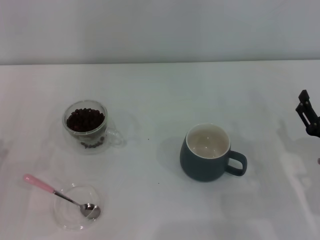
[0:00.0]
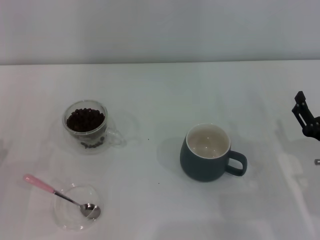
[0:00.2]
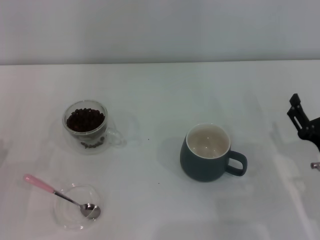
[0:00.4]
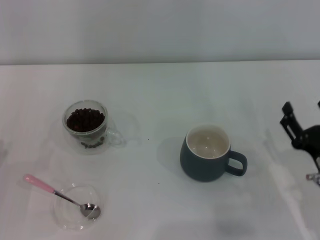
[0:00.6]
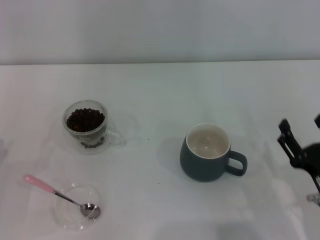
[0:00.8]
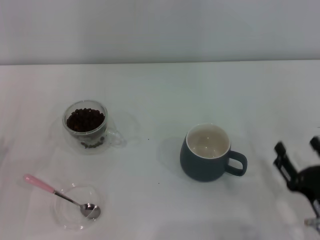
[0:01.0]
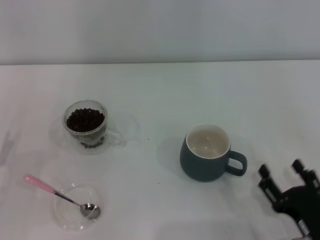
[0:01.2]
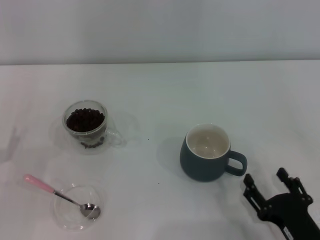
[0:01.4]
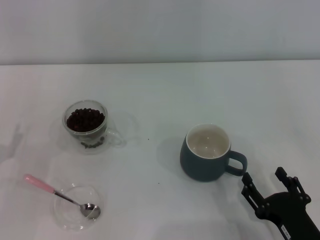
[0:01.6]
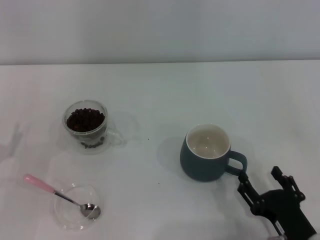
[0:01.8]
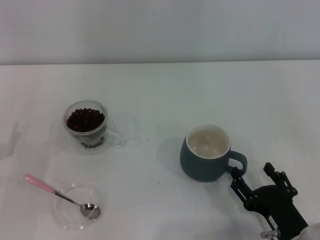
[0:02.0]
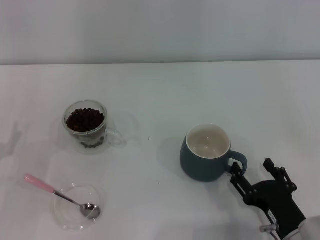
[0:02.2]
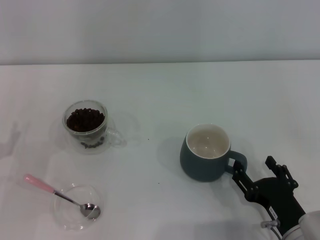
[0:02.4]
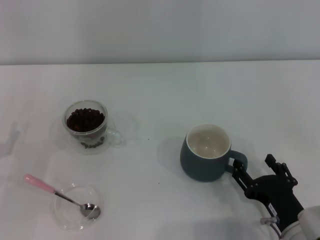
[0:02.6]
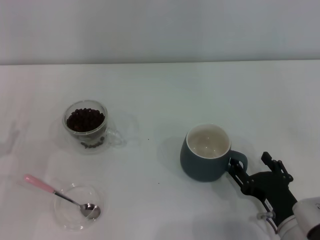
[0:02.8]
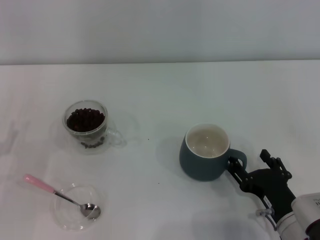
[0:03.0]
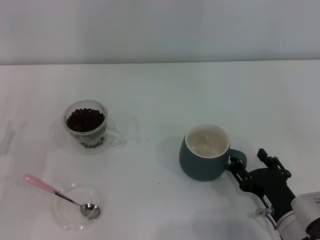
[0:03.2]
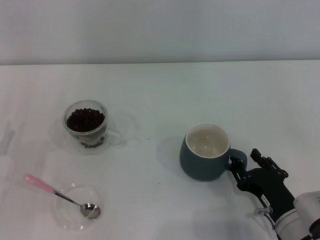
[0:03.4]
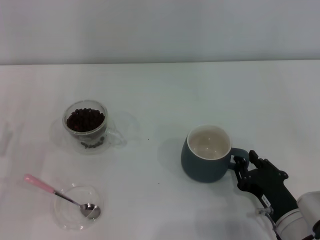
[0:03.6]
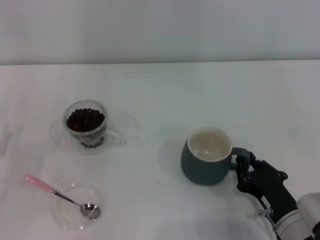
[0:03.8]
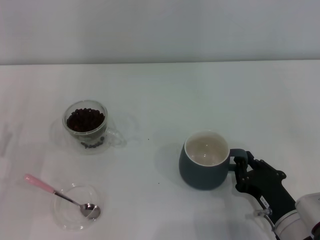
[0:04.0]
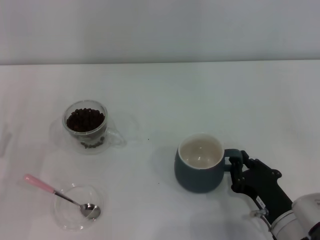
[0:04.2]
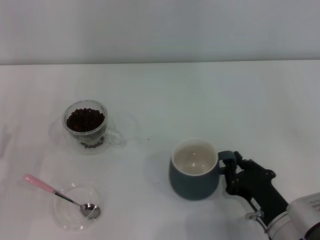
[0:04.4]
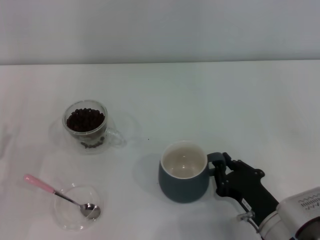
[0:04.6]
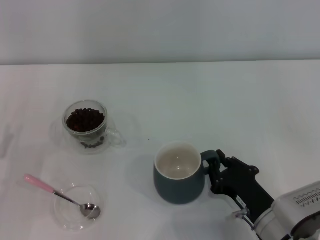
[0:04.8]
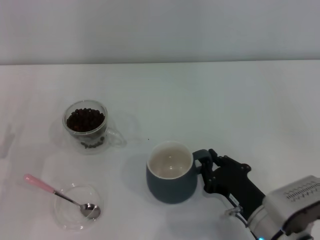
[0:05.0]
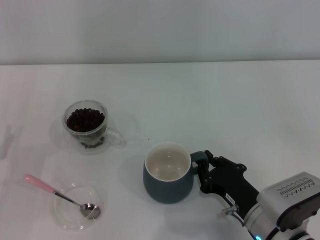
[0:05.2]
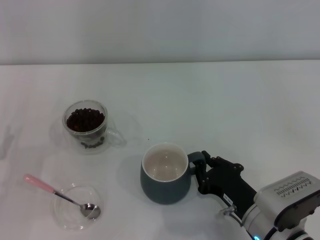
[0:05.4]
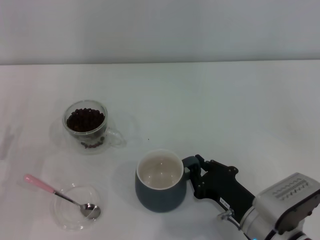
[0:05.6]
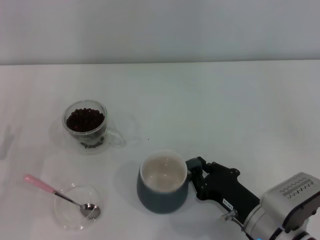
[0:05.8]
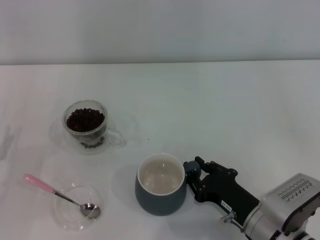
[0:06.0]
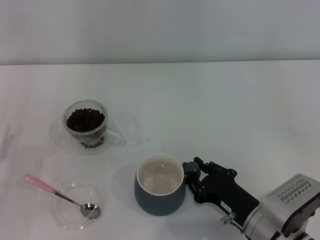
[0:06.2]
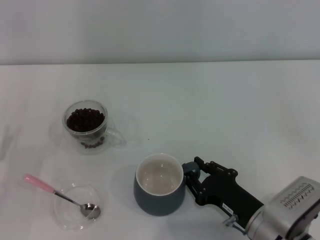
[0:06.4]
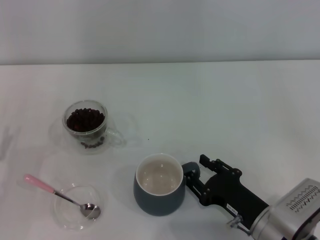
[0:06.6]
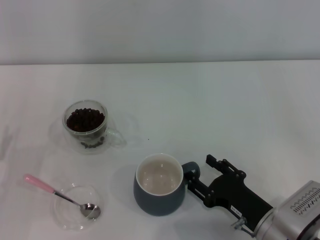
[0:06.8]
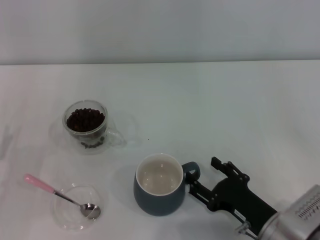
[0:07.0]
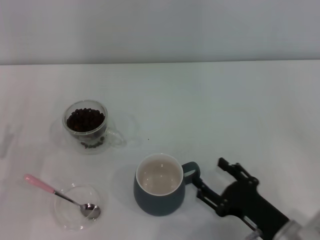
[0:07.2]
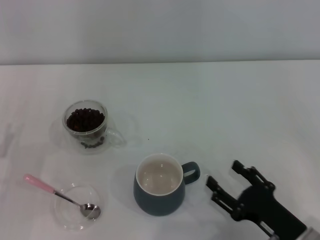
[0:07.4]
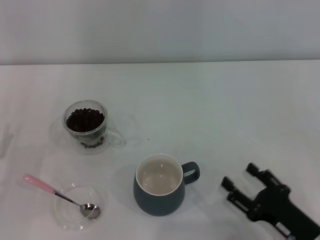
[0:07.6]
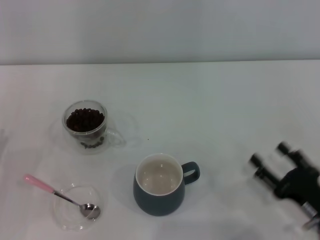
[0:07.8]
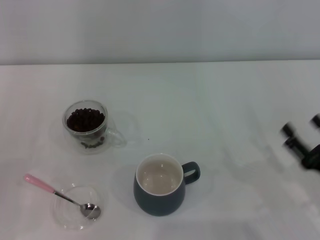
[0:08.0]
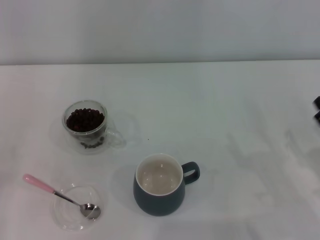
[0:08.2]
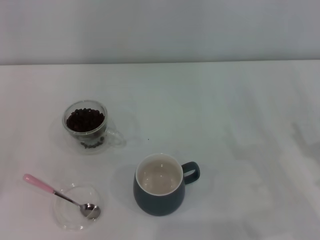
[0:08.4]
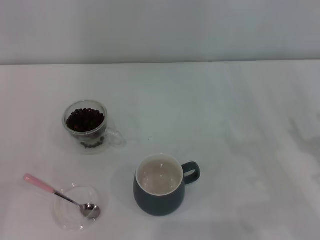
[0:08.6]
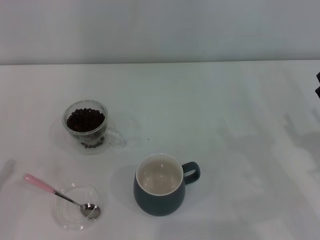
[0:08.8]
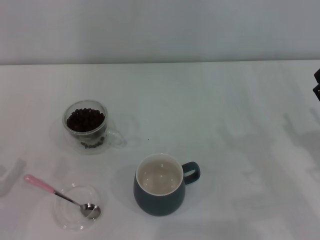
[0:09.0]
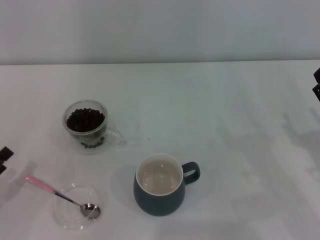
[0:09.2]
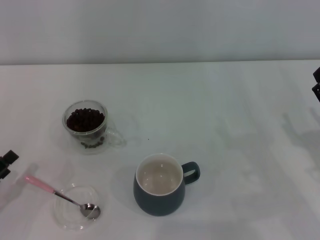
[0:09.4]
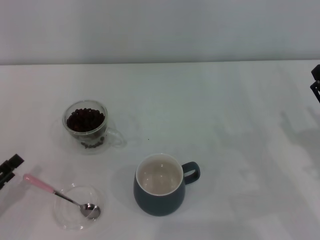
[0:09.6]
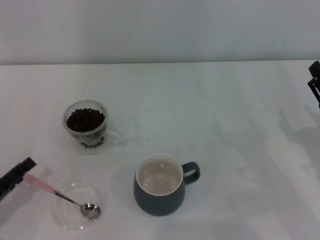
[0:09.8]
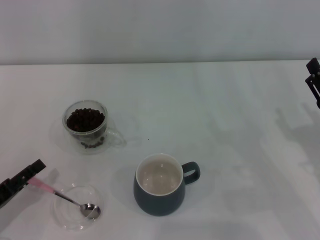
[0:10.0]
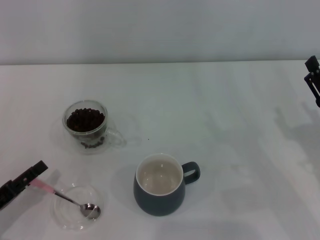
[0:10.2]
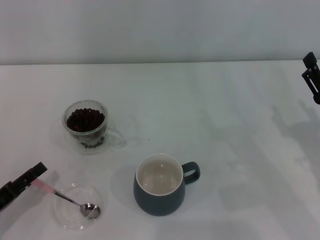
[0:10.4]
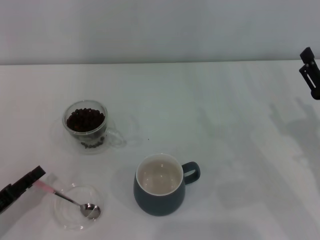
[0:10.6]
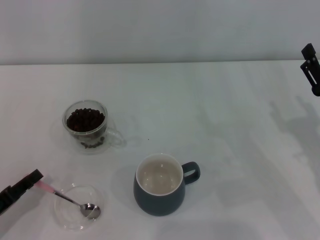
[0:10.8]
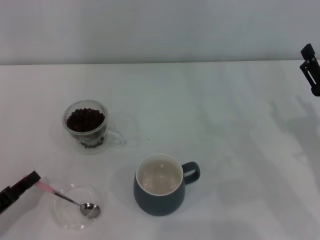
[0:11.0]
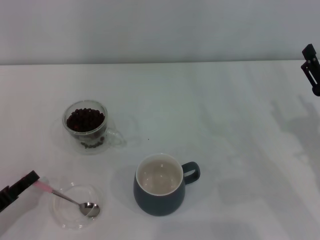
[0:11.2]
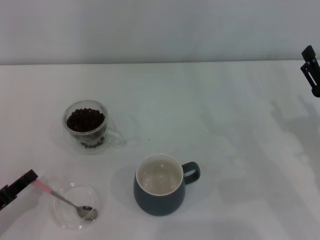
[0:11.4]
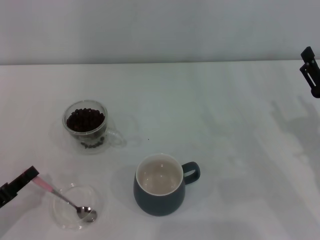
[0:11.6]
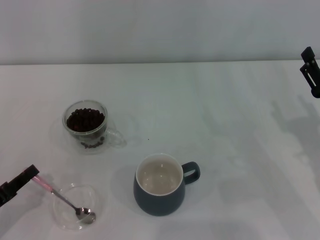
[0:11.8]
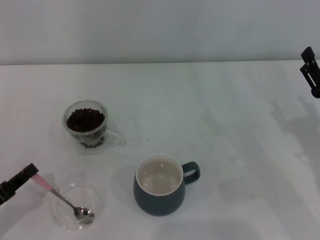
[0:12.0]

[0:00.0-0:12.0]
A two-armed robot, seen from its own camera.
Task of the whole recording: Use a pink spoon to take out the coffee beans from the glass and pour them into the gray cup.
Step, 0:00.0 to 0:07.4: Move the cup to the center of view with the left gripper.
0:00.0 to 0:01.6: The right gripper is displaced backward and to the left by roughly 10 cm.
0:01.6 to 0:03.0: The right gripper moves forward, about 5 cm.
0:03.0 to 0:04.4: The right gripper closes its fingers.
0:04.4 to 0:06.0: There are only small adjustments of the grippers.
0:06.0 to 0:07.6: The right gripper travels to the right by about 5 cm, and opens up.
0:07.6 to 0:09.0: The right gripper moves forward, to the right and upward, some 10 cm.
0:09.0 to 0:10.4: The grippers move only a little.
0:10.4 to 0:12.0: The left gripper closes up.

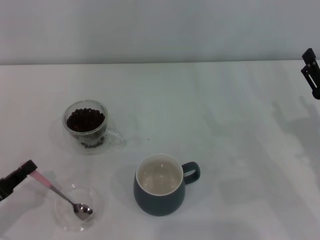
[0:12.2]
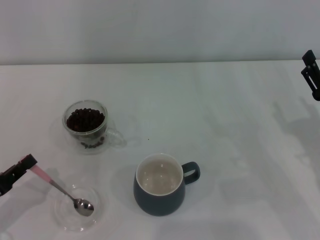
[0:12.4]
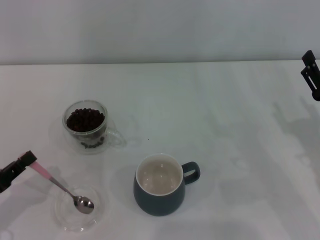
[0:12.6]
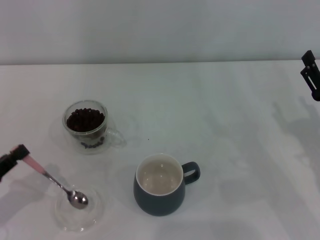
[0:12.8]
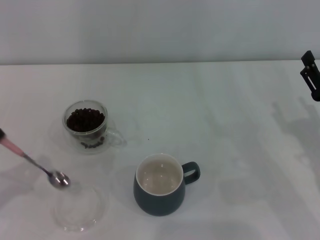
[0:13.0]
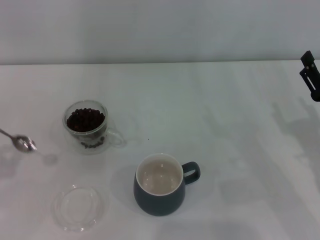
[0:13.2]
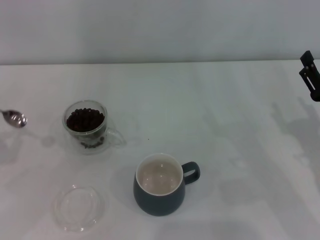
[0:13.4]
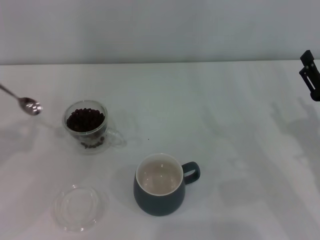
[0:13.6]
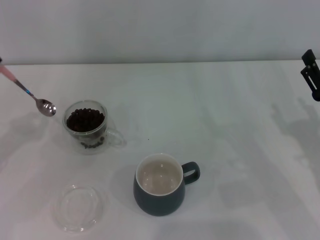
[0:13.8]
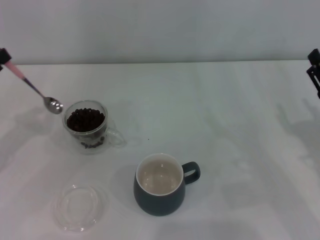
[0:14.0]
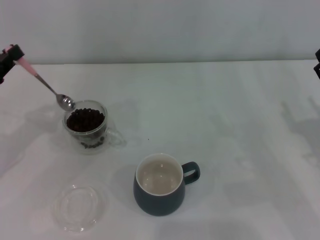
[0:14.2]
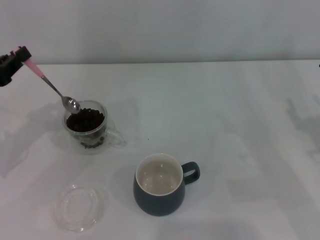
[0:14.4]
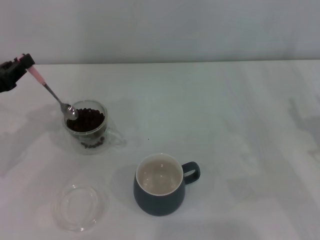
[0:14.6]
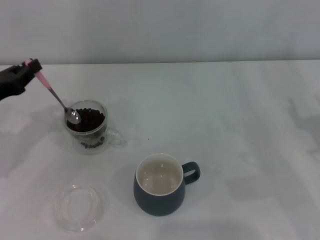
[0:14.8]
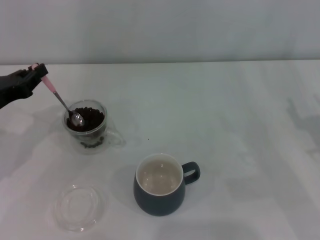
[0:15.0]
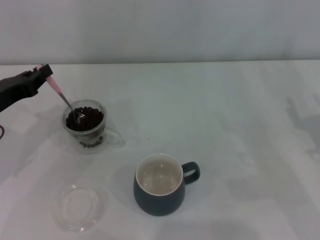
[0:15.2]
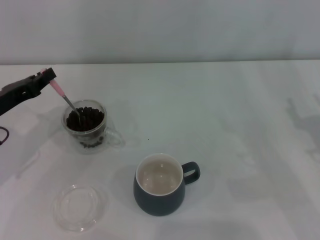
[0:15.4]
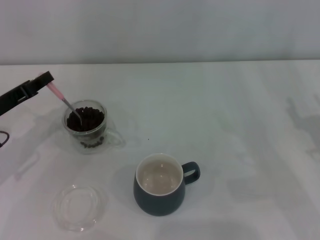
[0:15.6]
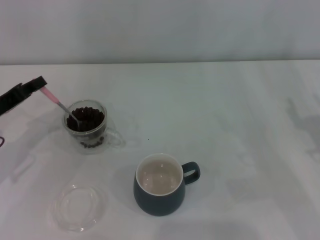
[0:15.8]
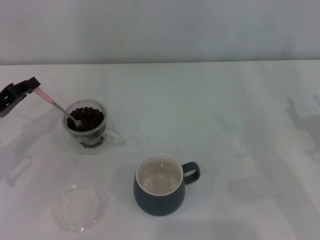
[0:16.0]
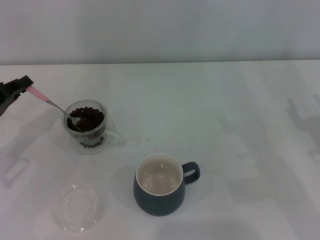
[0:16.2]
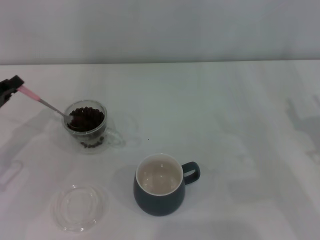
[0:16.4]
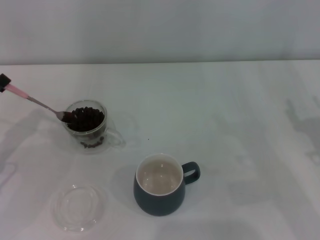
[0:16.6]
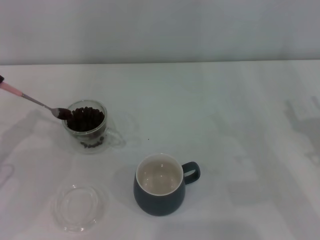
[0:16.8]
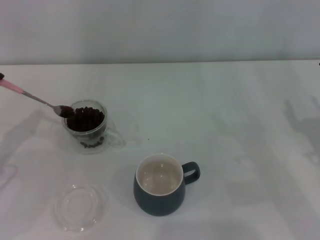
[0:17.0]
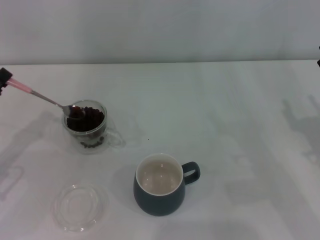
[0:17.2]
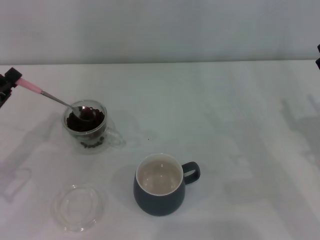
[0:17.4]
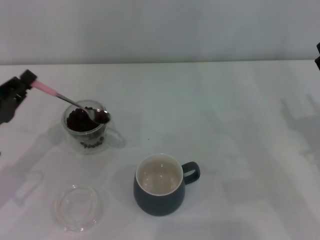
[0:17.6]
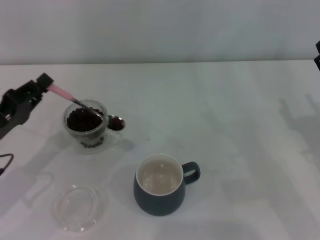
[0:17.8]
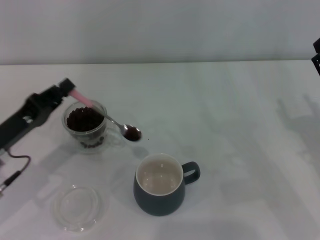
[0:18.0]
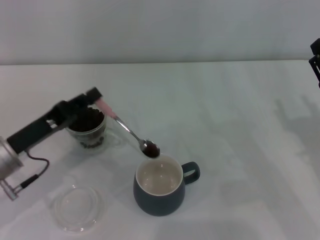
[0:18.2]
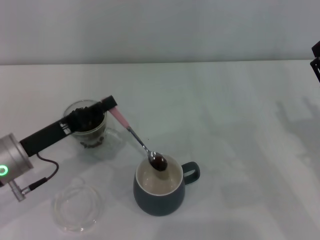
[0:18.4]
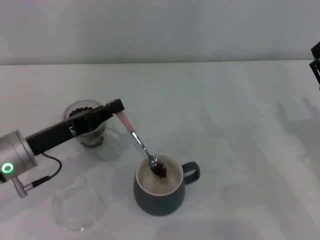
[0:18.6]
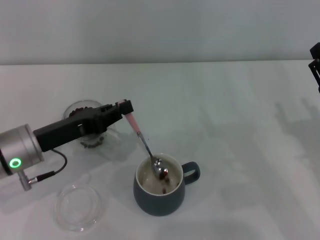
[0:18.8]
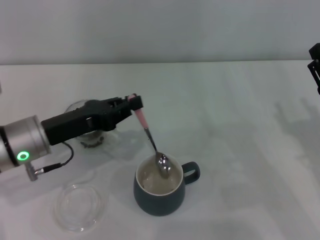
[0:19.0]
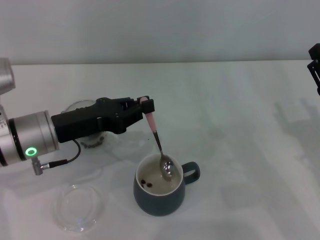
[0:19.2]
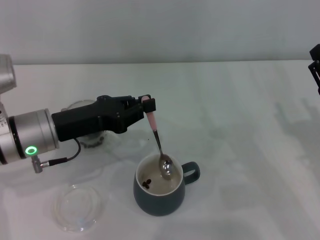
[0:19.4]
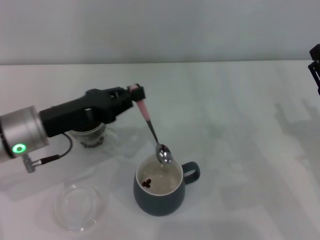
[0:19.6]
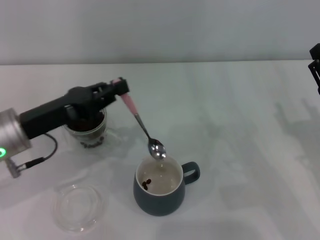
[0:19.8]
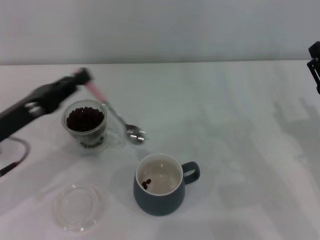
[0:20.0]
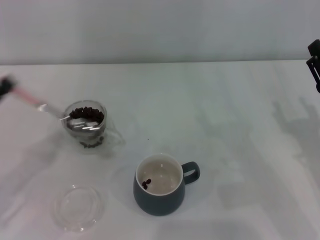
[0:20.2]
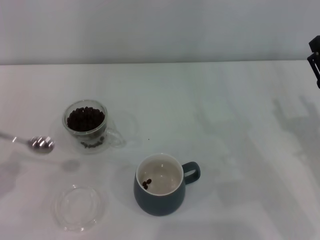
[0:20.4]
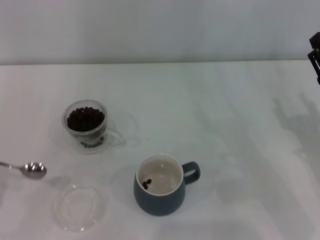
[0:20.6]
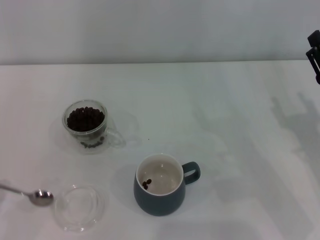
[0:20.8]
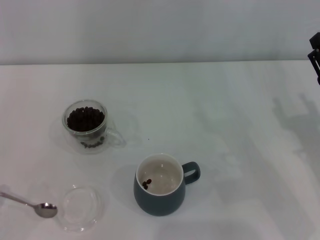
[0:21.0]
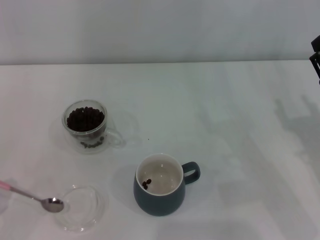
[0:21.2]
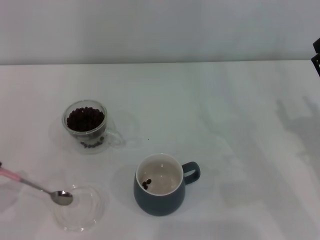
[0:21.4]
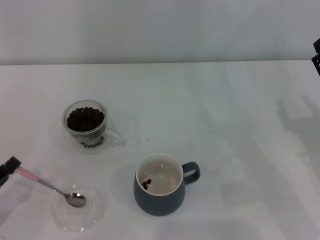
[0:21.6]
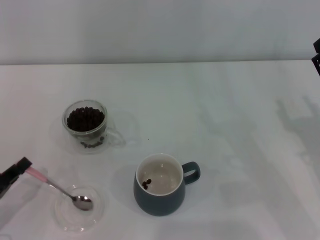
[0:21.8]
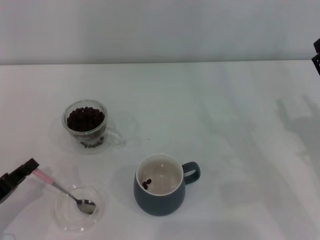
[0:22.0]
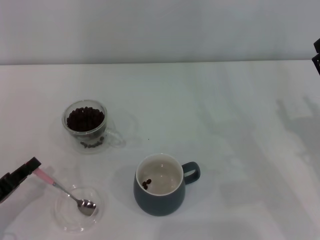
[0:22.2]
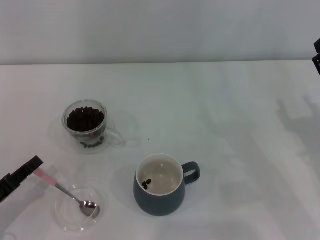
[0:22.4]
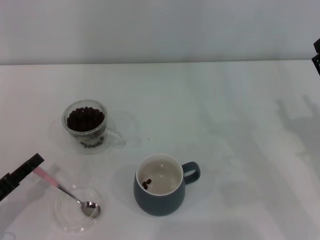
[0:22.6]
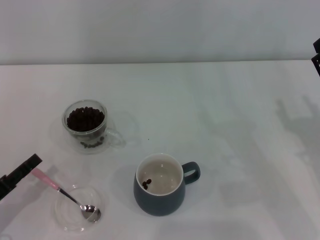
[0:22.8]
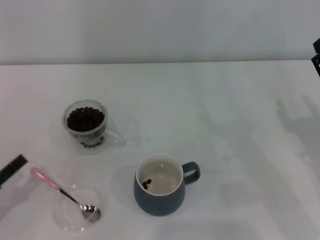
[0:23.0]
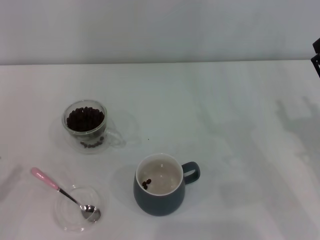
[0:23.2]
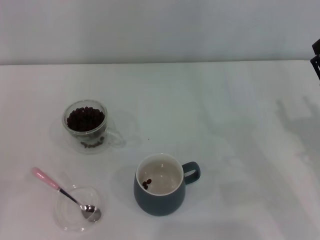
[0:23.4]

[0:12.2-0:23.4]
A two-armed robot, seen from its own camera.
Task of the whole recording: Use a pink spoon to take out the coffee beans from the glass and pour them into the gray cup.
0:12.2 to 0:13.8: The left gripper moves forward and upward, about 15 cm.
0:13.8 to 0:15.4: The left gripper is displaced to the right by about 5 cm.
0:15.4 to 0:17.0: The left gripper shifts by approximately 5 cm.
0:17.0 to 0:18.6: The left gripper shifts some 10 cm to the right.
0:18.6 to 0:20.2: The left gripper shifts about 10 cm to the left and backward.
0:20.2 to 0:21.8: The left gripper is displaced downward by some 5 cm, and travels backward and back again, some 10 cm each way.
0:21.8 to 0:23.4: The left gripper goes approximately 10 cm to the left, and opens up.
